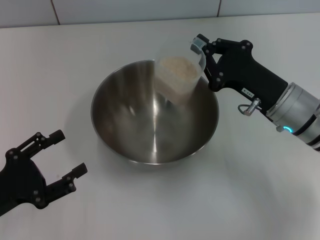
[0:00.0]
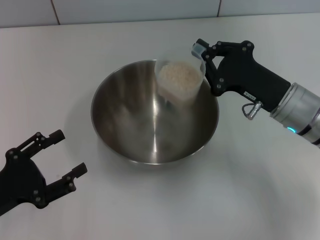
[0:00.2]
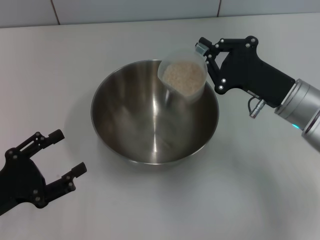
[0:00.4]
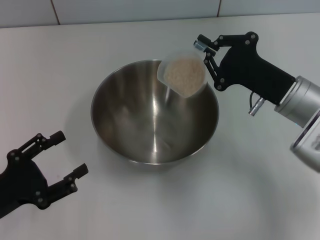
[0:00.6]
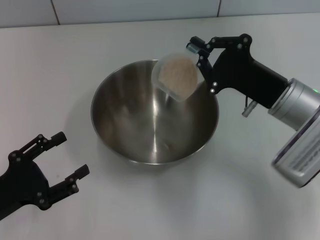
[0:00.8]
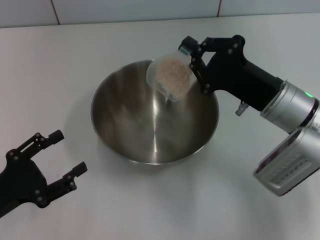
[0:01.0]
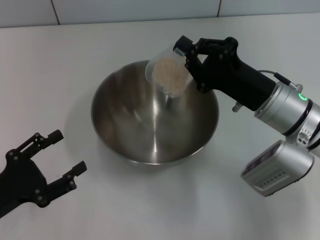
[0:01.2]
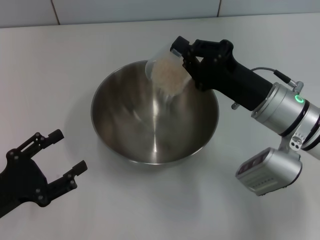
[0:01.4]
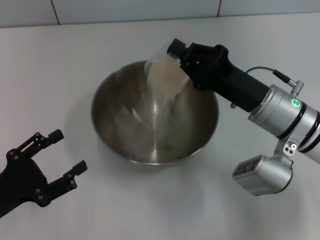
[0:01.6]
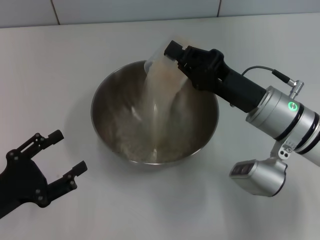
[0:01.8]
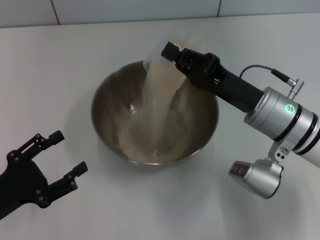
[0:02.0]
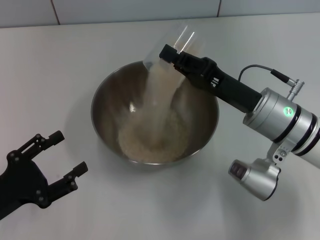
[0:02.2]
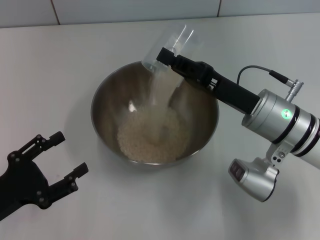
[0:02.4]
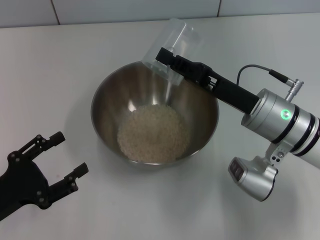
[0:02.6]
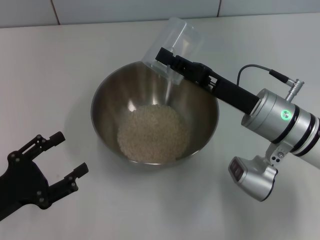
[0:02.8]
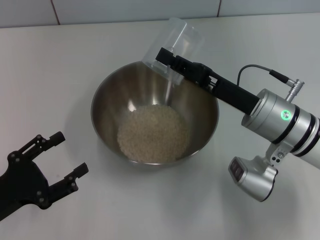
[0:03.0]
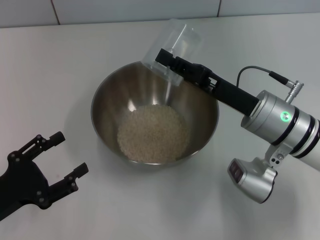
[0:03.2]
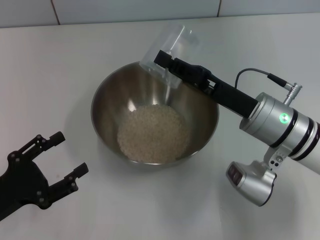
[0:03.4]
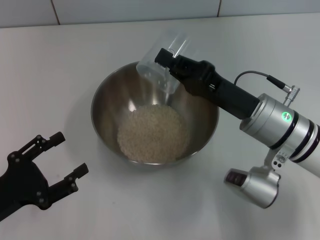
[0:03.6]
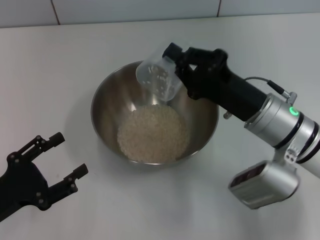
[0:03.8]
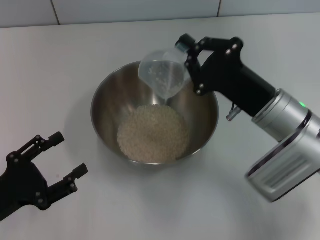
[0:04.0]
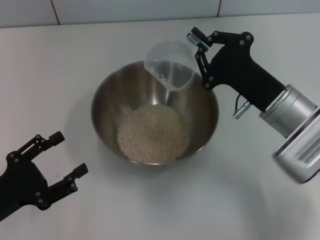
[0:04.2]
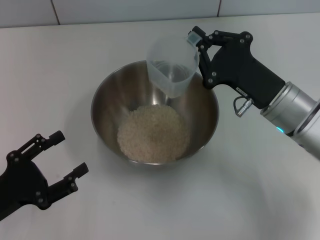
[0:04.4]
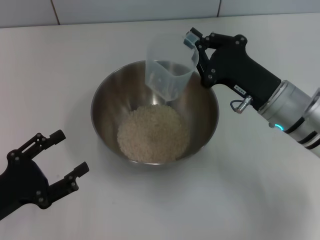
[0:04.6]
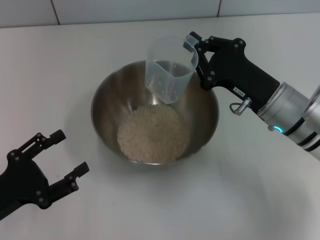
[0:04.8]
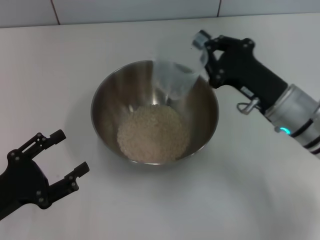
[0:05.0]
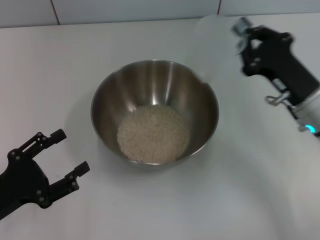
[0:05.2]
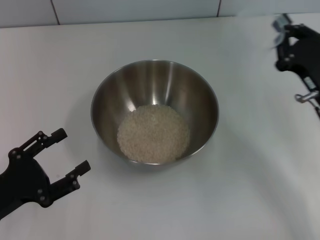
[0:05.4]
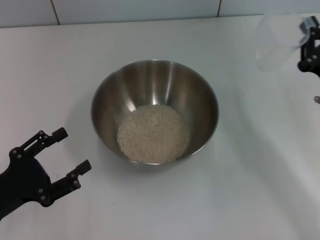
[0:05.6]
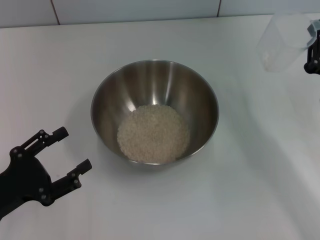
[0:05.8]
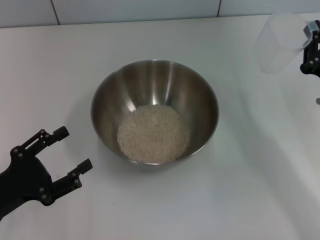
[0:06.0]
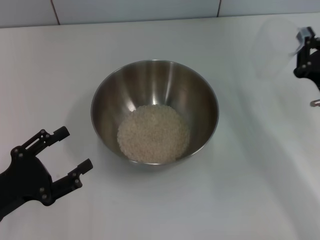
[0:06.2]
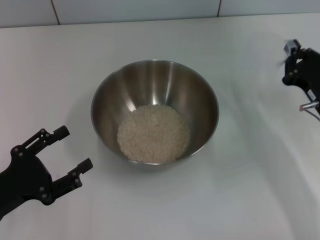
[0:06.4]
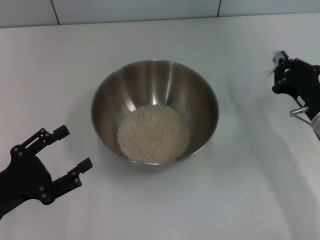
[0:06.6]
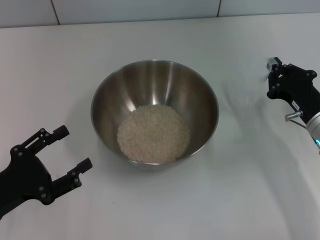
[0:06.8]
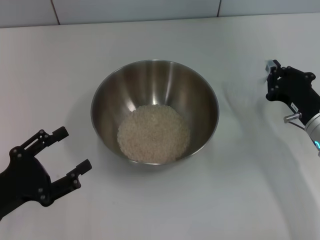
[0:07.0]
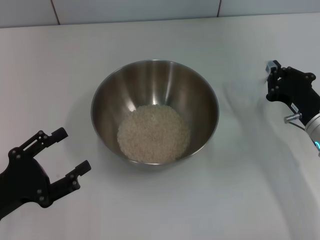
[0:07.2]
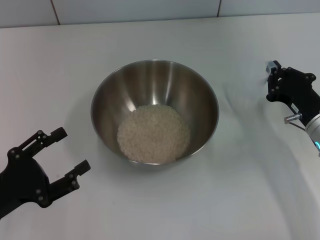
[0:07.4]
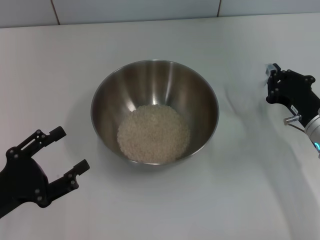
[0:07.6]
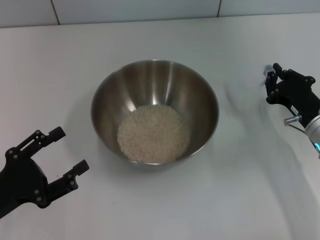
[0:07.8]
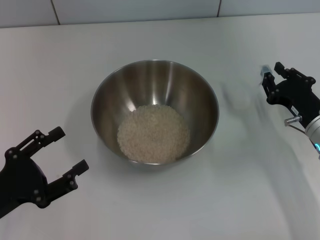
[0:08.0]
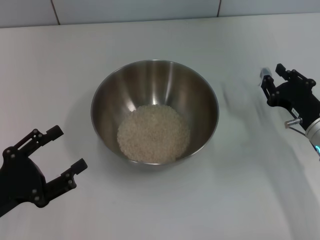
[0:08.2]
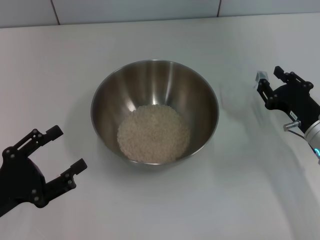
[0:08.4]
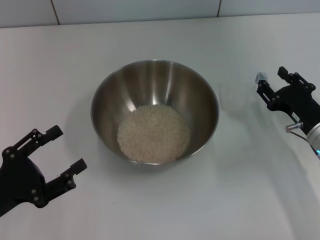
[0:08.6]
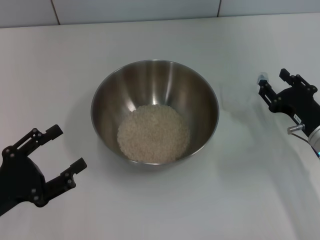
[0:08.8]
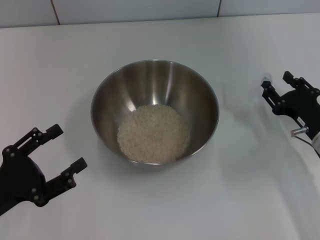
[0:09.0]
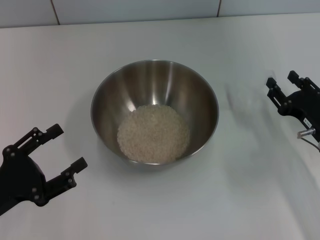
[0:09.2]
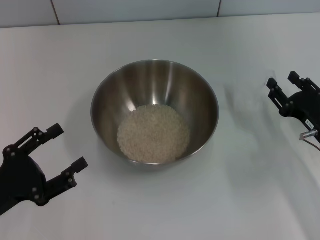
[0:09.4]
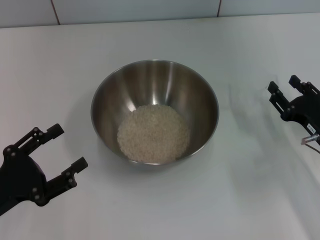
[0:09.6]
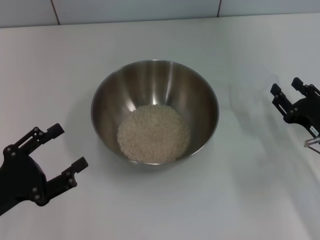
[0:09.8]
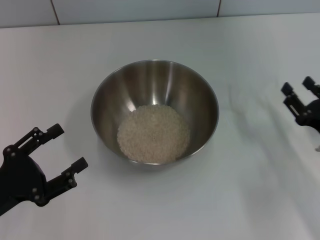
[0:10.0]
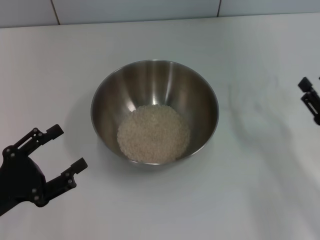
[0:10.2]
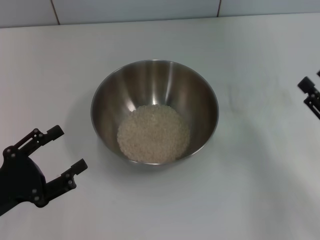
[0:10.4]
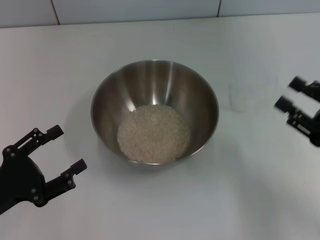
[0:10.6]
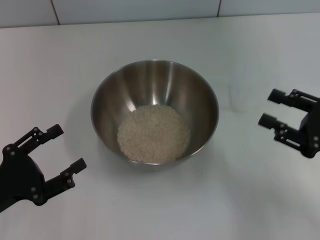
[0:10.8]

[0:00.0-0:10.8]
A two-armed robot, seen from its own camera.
Task of the whole recording: Place the bowl in the middle of the table with one hand and pour the rice from the grain cup into it with the other hand.
Step, 0:00.0 to 0:05.2: Pour the rice from the cup into the bowl with the right gripper.
Step, 0:05.4 to 0:09.8: Place the cup on the table with the right gripper.
0:04.6 to 0:06.2: The right gripper is displaced to the right by roughly 10 cm.
0:06.2 to 0:07.8: There are only small adjustments of the grippers.
0:07.8 to 0:09.2: The right gripper opens its fingers.
0:09.2 to 0:10.8: The right gripper is displaced upward by about 5 cm.

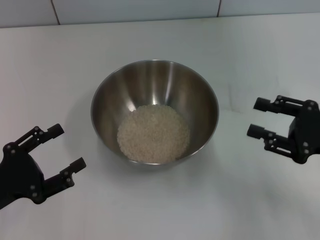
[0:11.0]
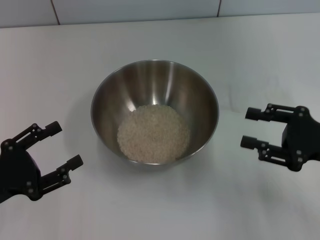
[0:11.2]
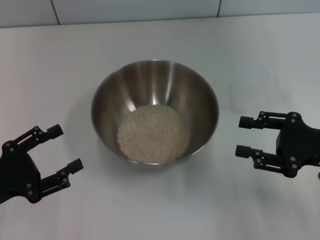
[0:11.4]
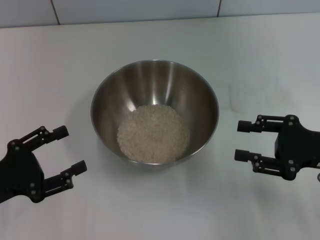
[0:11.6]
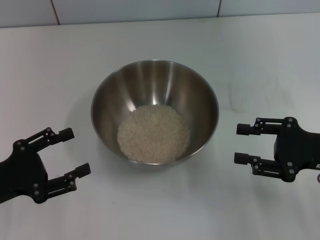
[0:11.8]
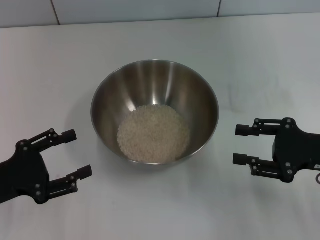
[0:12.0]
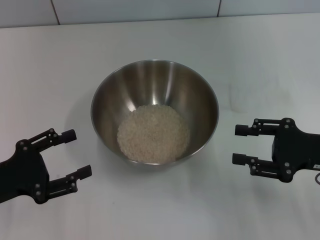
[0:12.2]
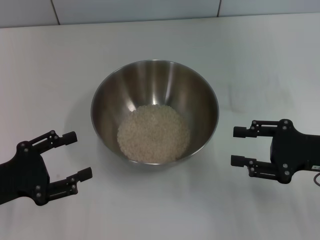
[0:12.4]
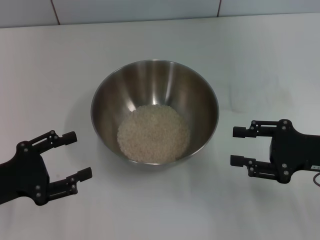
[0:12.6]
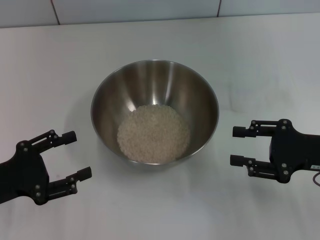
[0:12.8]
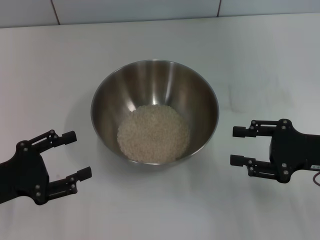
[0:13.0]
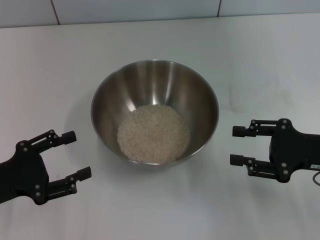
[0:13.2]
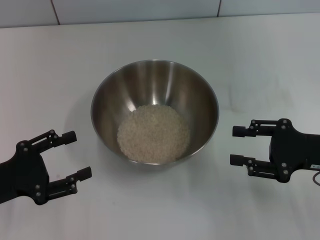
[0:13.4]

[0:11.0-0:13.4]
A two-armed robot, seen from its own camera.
Task of the whole recording: Place the bowl in the middle of the table with one hand and pour the rice from the grain cup into it with the other hand.
0:11.0 to 0:12.2: There are only small adjustments of the grippers.
0:12.2 to 0:13.4: Both grippers stay put.
